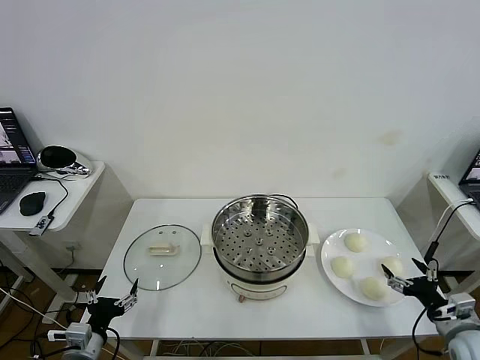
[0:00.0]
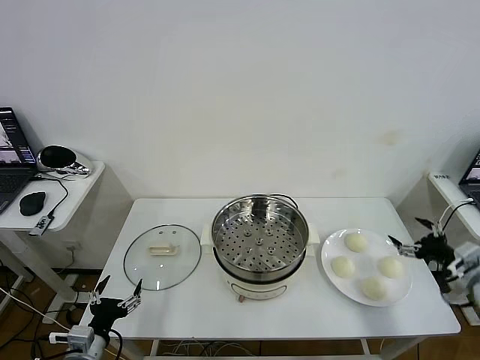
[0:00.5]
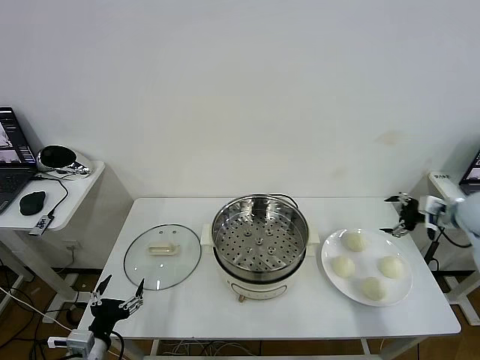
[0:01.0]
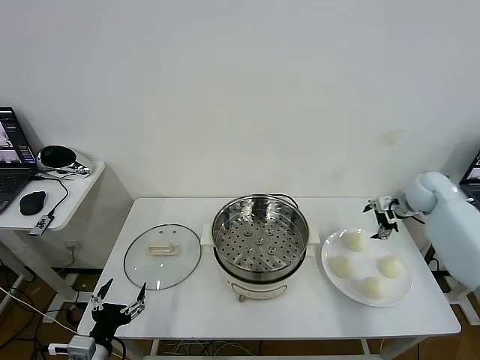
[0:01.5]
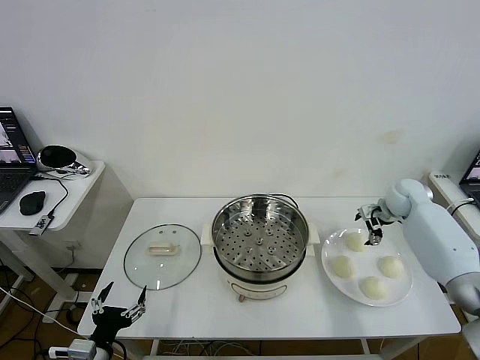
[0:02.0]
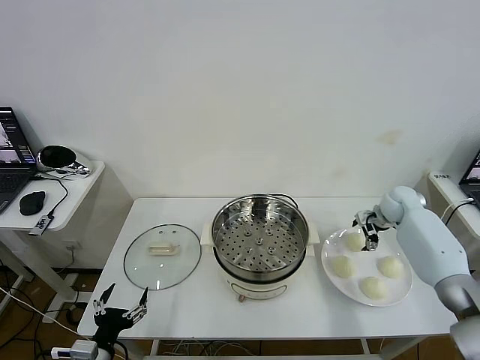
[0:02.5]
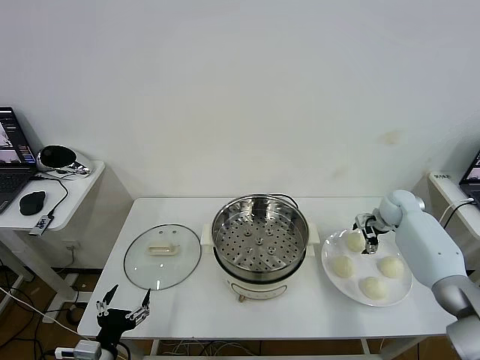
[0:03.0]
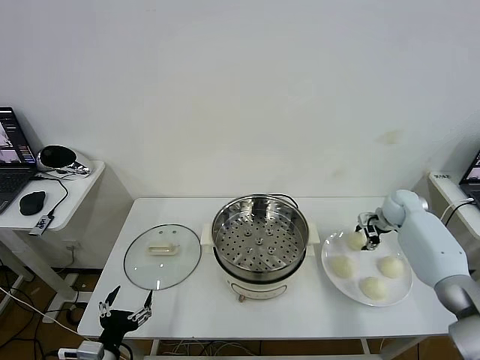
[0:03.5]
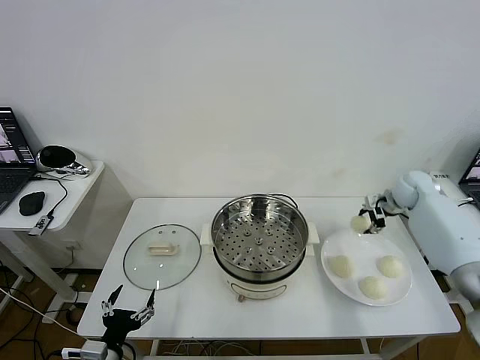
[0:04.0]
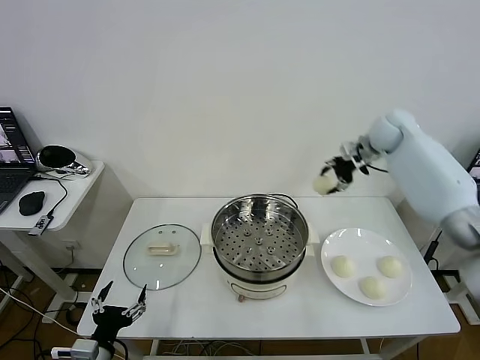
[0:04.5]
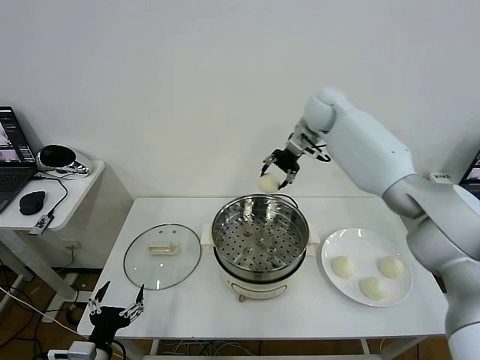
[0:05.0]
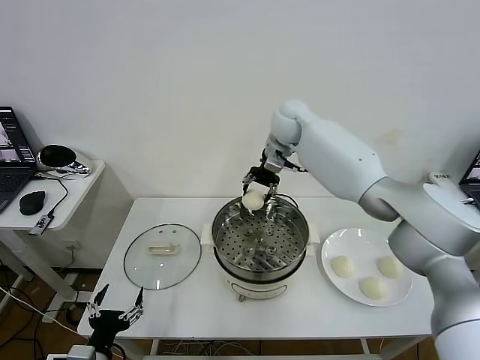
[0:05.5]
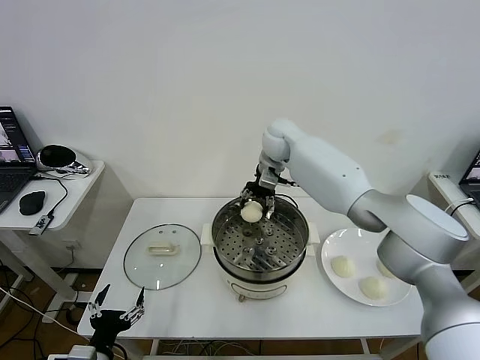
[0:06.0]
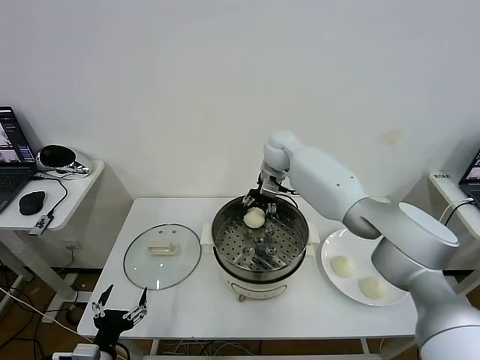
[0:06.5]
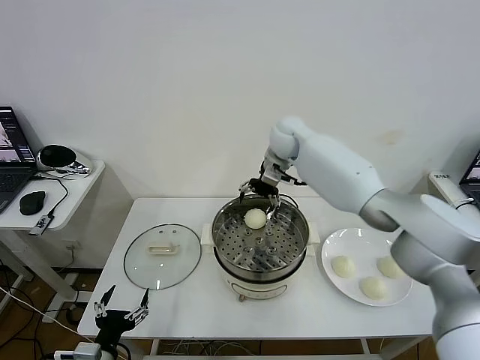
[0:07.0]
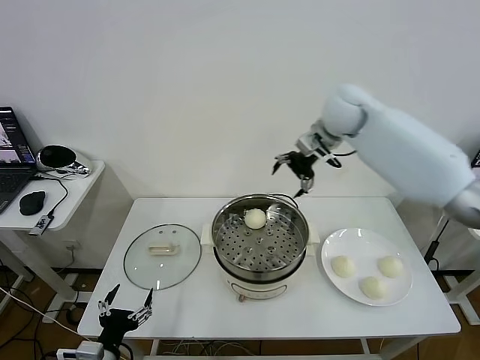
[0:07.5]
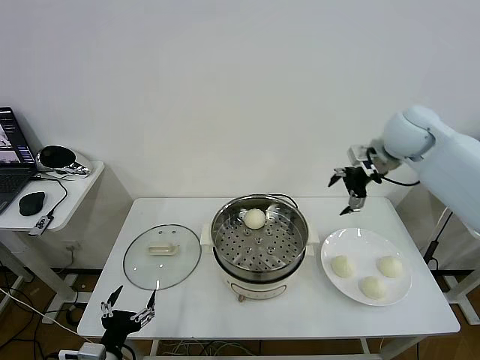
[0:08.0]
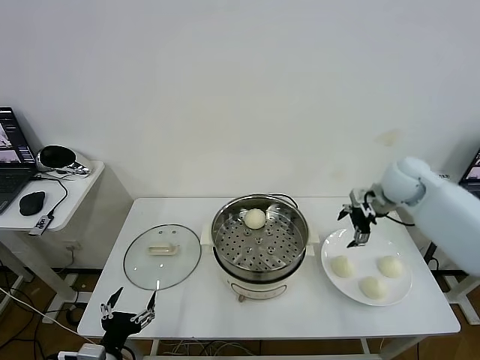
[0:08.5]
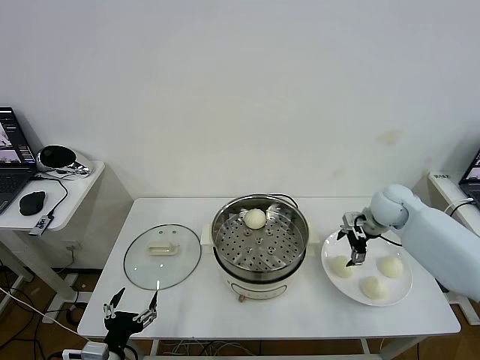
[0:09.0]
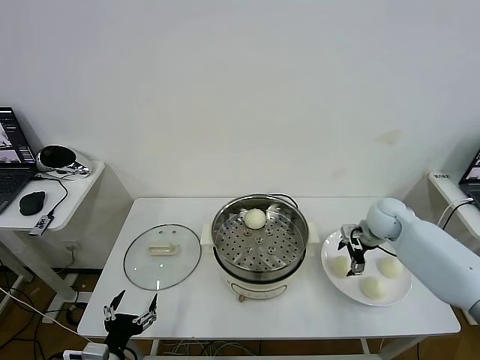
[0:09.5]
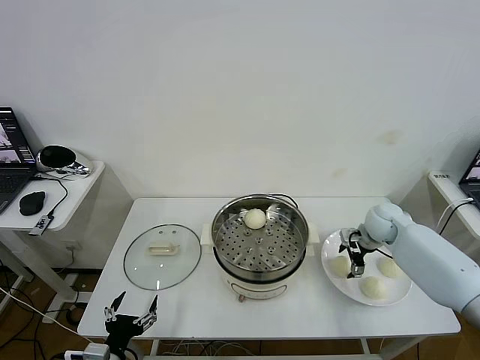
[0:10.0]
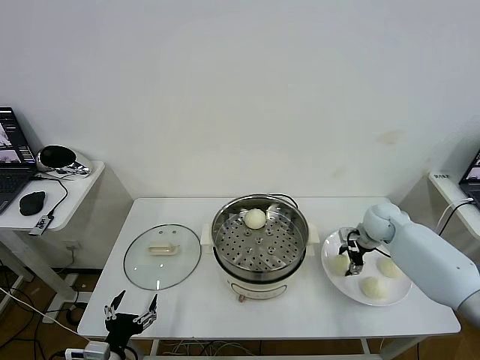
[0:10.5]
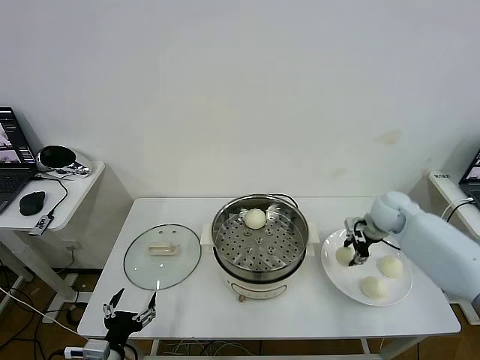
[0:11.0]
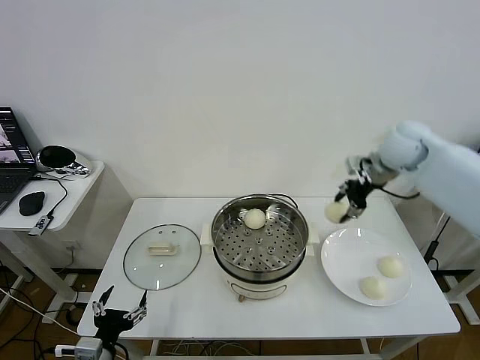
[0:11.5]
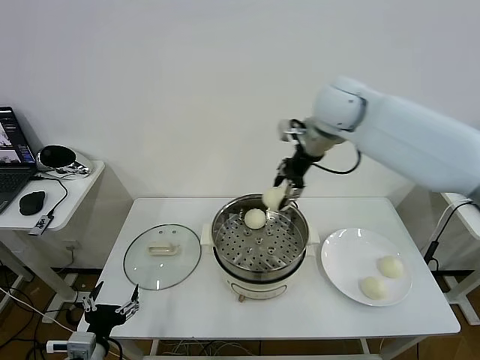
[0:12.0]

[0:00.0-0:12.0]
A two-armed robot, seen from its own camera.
Task of the whole recording: take steamed baozi put them in steamer then cover it.
Step, 0:00.0 to 0:03.0: Grasp the baozi in the plate with right gripper.
Step, 0:03.5 to 0:07.0: Place the baozi on the steamer with right gripper.
Step, 0:07.5 to 0:10.5: Grasp the baozi in the plate with right gripper.
0:02.0 to 0:04.0: The right gripper shifts about 10 cm upward, and closes its fingers.
0:04.0 to 0:06.0: The right gripper travels to the left by approximately 35 cm.
0:06.0 to 0:08.0: The right gripper is displaced to the right and backward by about 25 cm, and opens.
0:08.0 to 0:10.0: The right gripper is displaced downward by approximately 20 cm.
0:10.0 to 0:12.0: The right gripper moves upward and to the left, roughly 35 cm, and closes up.

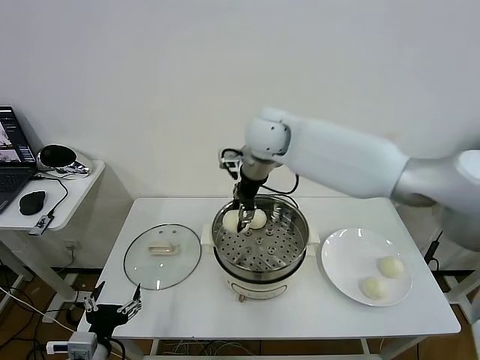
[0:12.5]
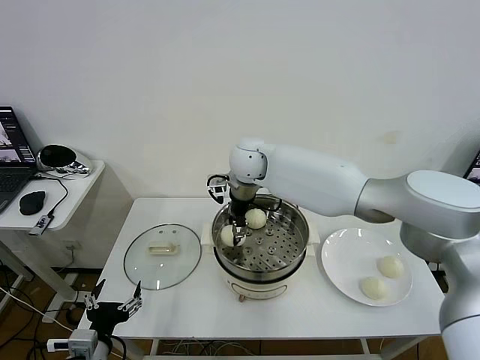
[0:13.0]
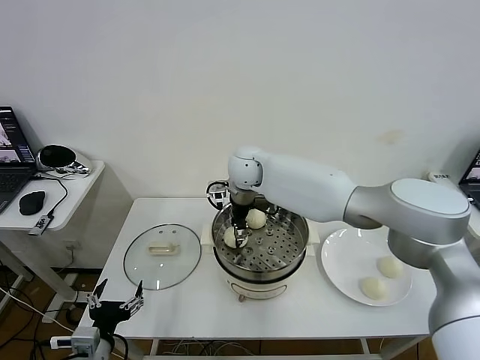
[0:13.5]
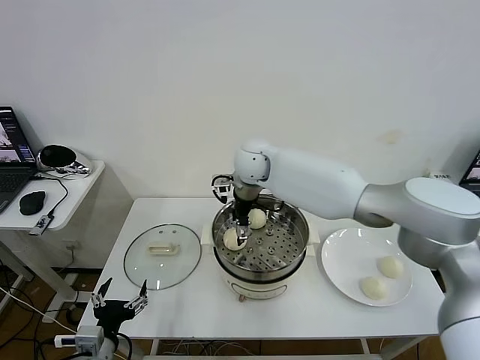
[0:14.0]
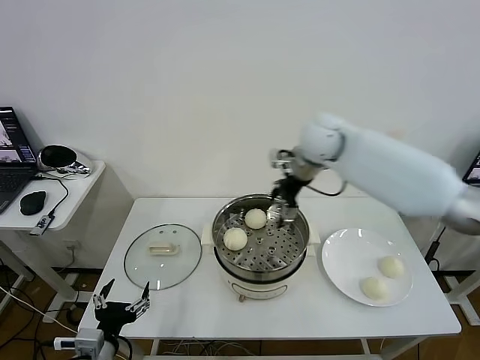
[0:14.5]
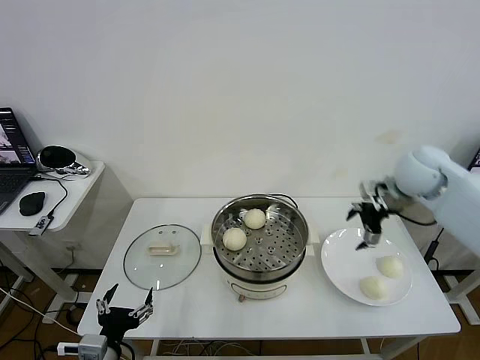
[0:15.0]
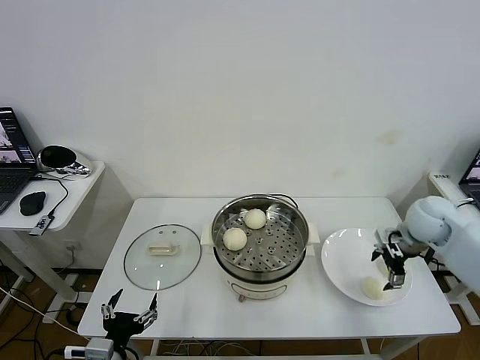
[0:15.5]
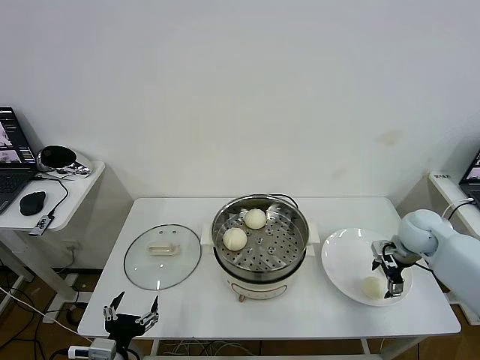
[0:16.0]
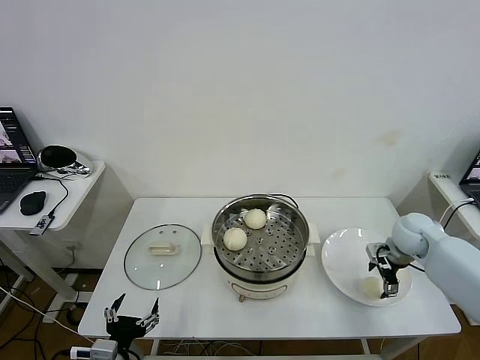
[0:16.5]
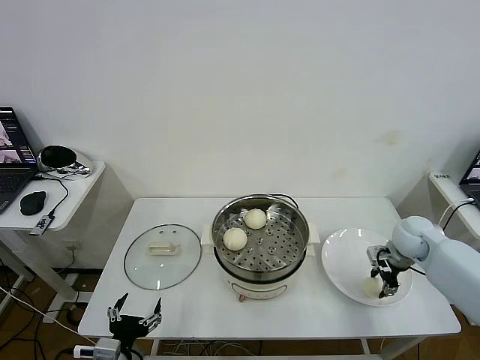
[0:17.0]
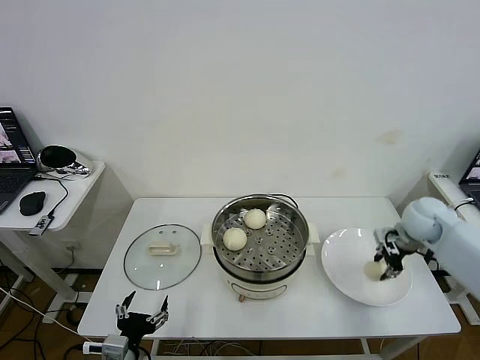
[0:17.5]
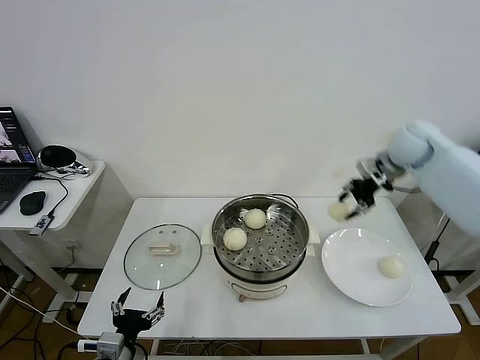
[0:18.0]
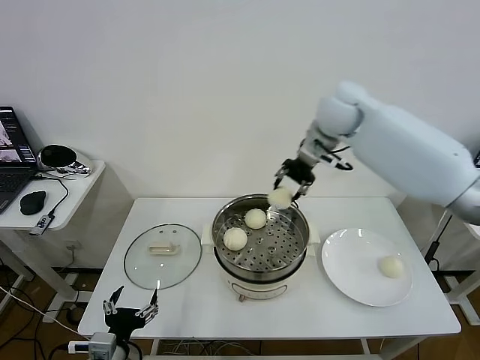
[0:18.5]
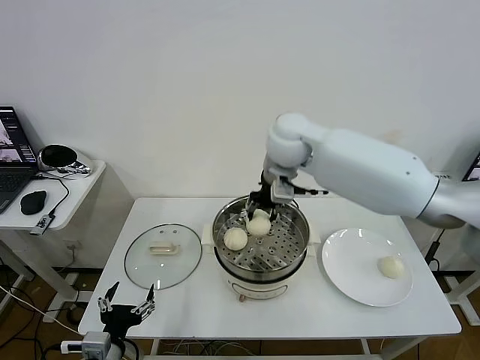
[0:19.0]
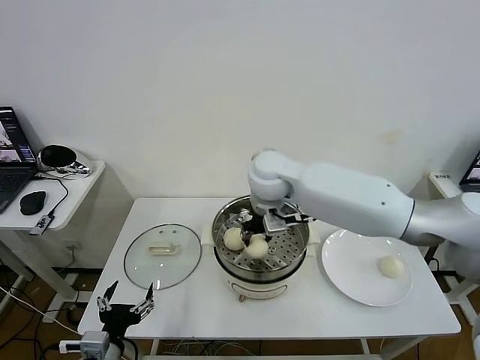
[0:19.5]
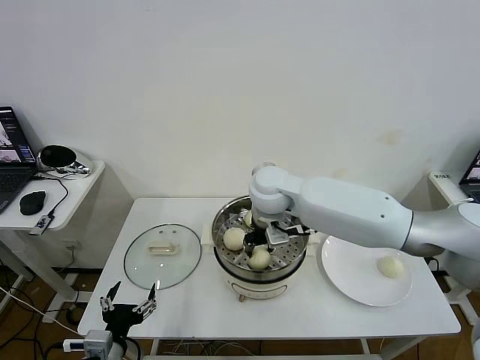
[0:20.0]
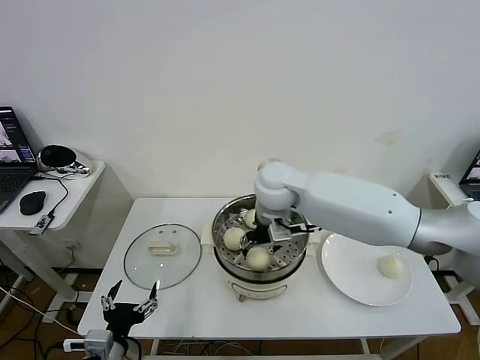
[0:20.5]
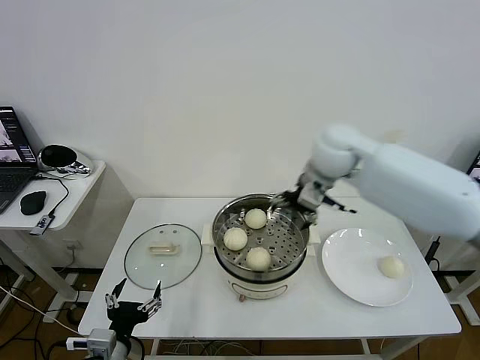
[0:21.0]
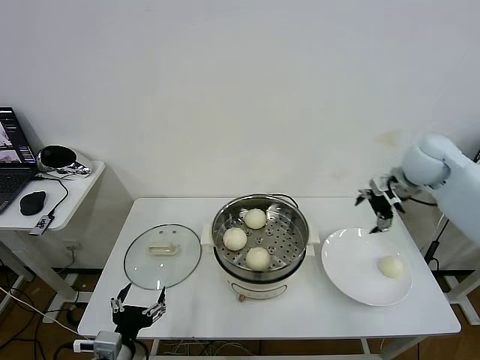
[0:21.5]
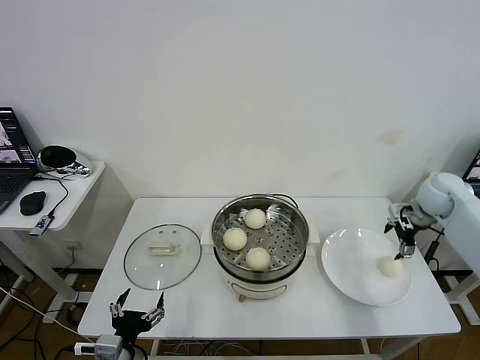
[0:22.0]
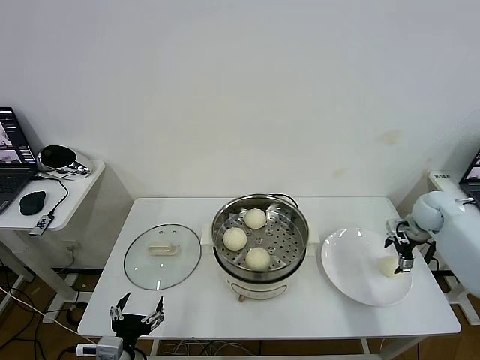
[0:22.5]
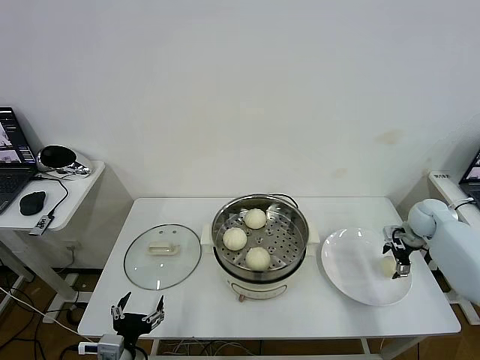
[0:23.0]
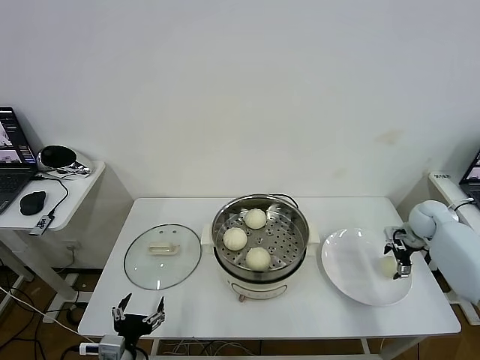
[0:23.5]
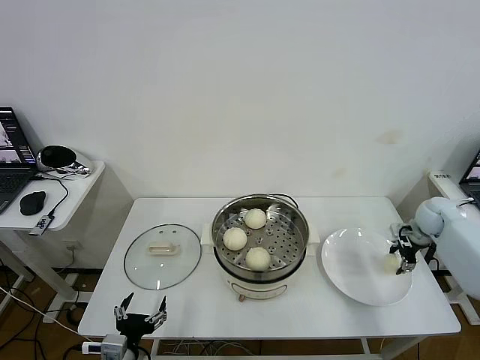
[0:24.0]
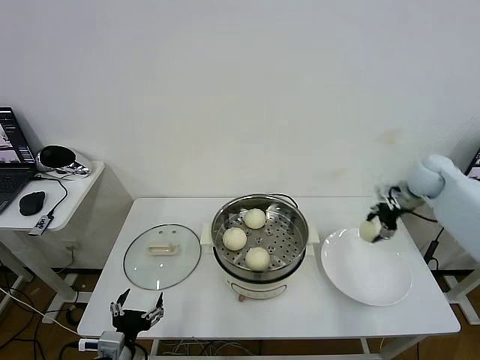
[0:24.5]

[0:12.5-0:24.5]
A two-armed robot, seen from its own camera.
Task of the whole recording: take steamed baozi put them in steamer then cover it.
Step, 0:14.5 to 0:17.0: Grasp the baozi in the plate with right gripper.
Step, 0:17.5 to 0:20.5: Place the baozi on the steamer with right gripper.
Step, 0:21.0 to 0:23.5: Grasp the baozi in the plate with right gripper.
0:12.5 to 0:14.5: The right gripper is displaced to the right by about 20 cm, and opens up.
0:14.5 to 0:16.5: The right gripper travels downward and to the right by roughly 30 cm.
0:16.5 to 0:18.5: The right gripper shifts roughly 35 cm upward and to the left, and closes up.
0:18.5 to 0:20.5: The right gripper heads downward, to the left and backward, covering about 15 cm, and opens.
0:20.5 to 0:22.5: The right gripper heads to the right, covering roughly 40 cm.
0:22.5 to 0:24.5: The right gripper shifts about 10 cm upward and to the left, and closes its fingers.

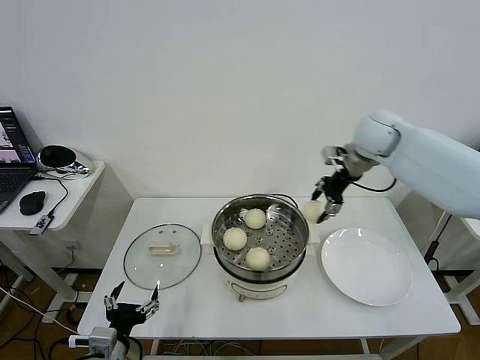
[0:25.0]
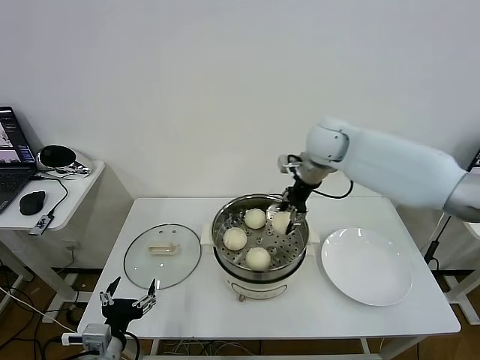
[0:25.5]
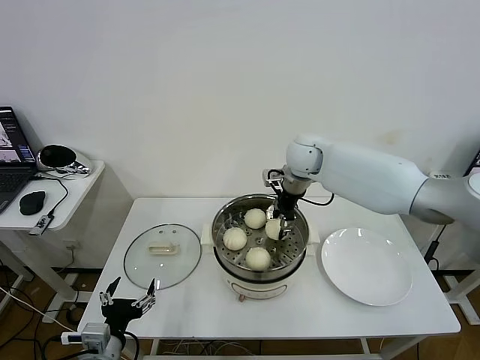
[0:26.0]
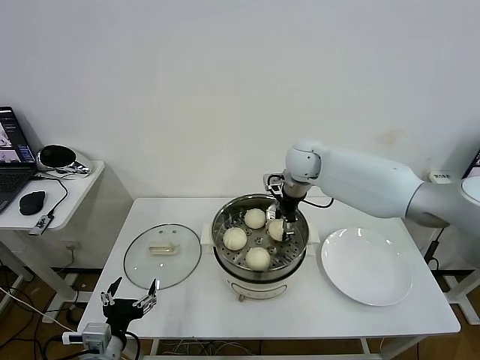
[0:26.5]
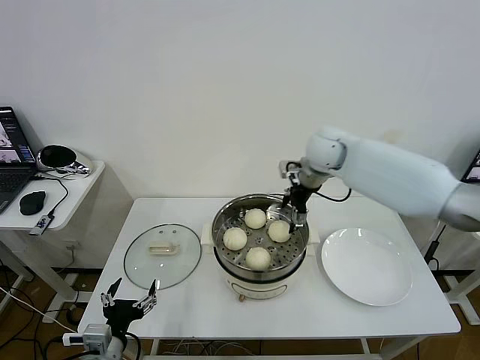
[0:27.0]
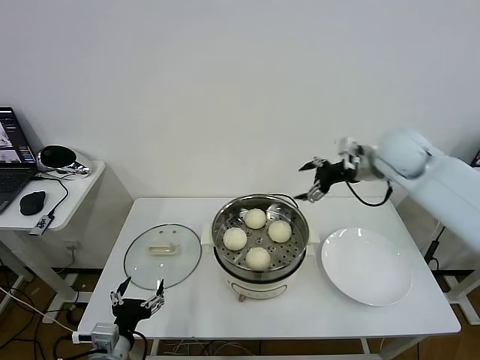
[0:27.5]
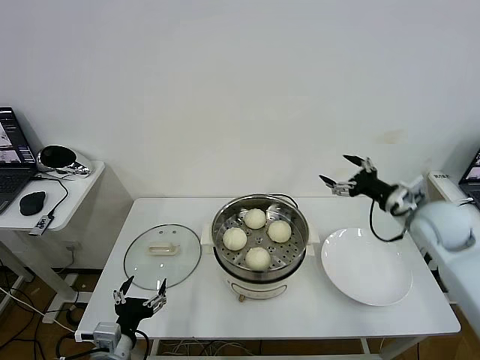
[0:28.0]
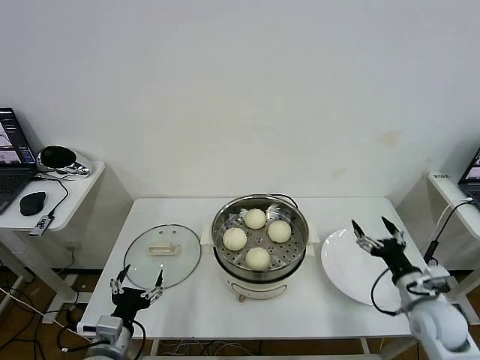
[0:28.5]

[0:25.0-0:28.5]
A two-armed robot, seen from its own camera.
Task of the whole recording: take steamed baozi put them in steamer then cover it.
Step, 0:25.0 to 0:26.5: Place the baozi on the steamer with right gripper.
0:25.0 to 0:27.0: The right gripper moves to the left, roughly 10 cm, and opens.
0:27.0 to 0:28.5: The right gripper is displaced backward, downward and to the right by approximately 40 cm.
